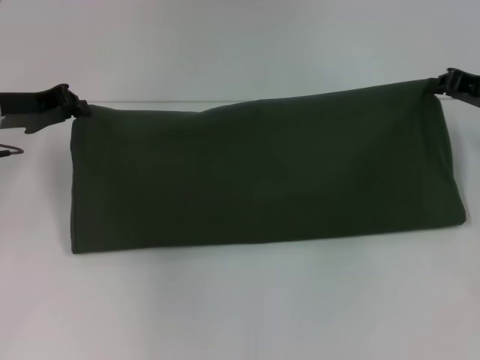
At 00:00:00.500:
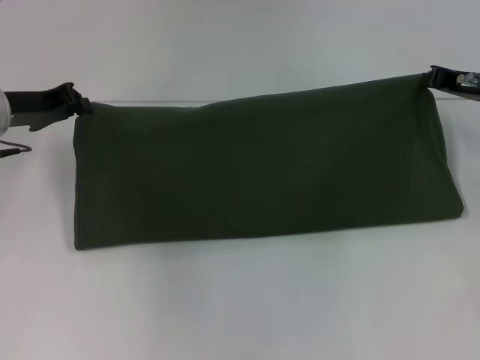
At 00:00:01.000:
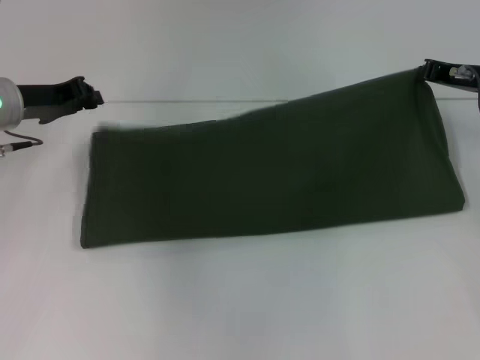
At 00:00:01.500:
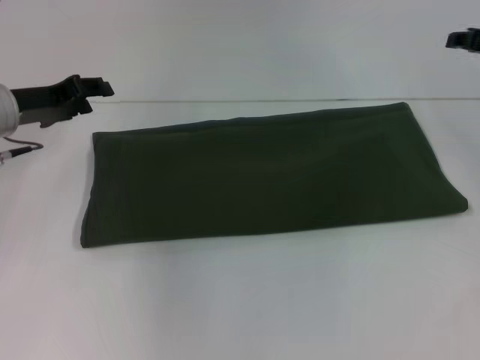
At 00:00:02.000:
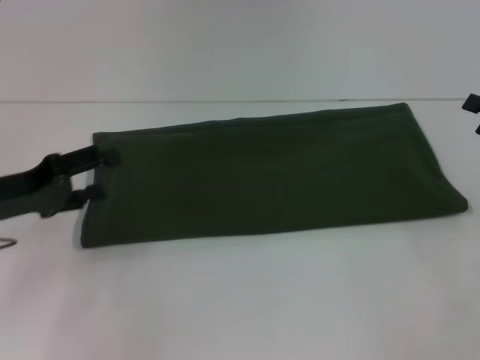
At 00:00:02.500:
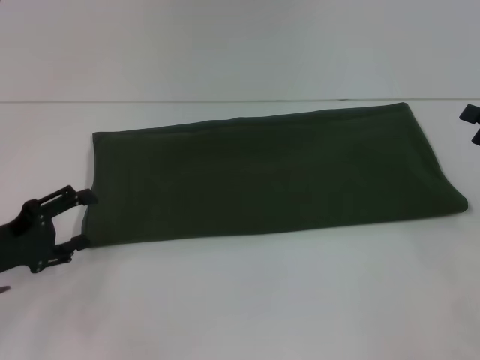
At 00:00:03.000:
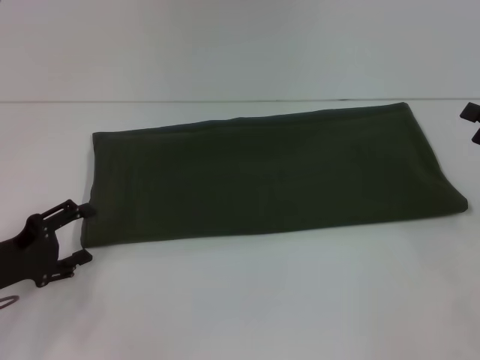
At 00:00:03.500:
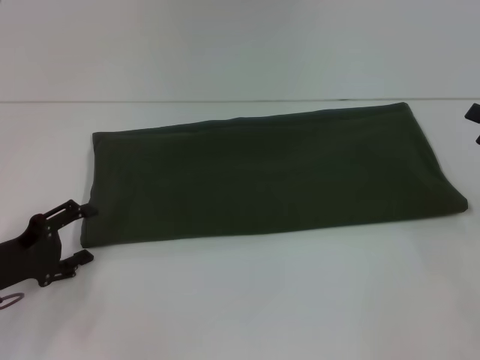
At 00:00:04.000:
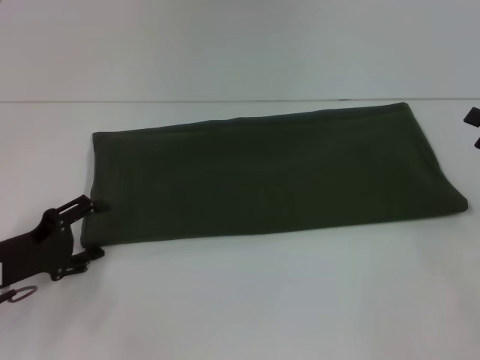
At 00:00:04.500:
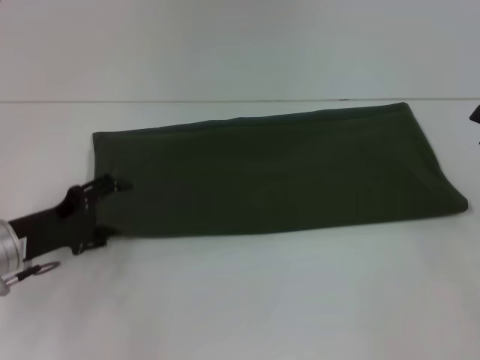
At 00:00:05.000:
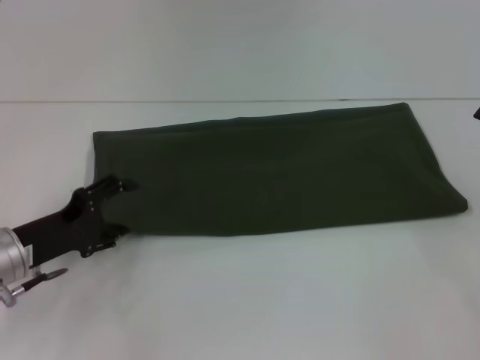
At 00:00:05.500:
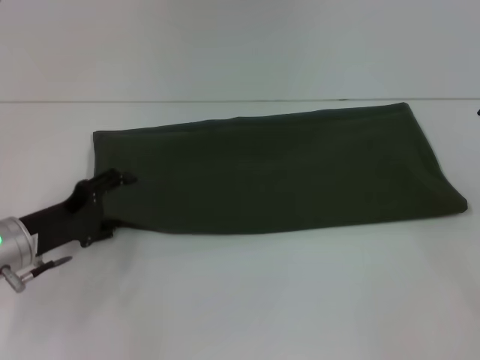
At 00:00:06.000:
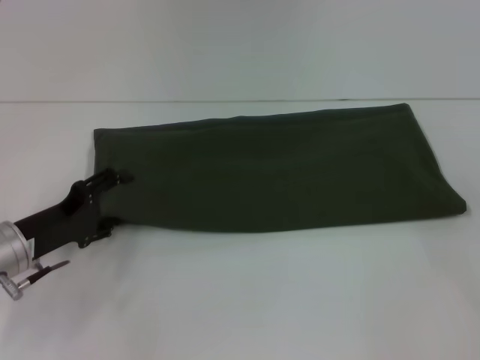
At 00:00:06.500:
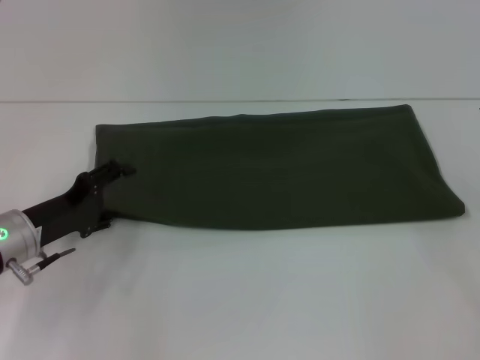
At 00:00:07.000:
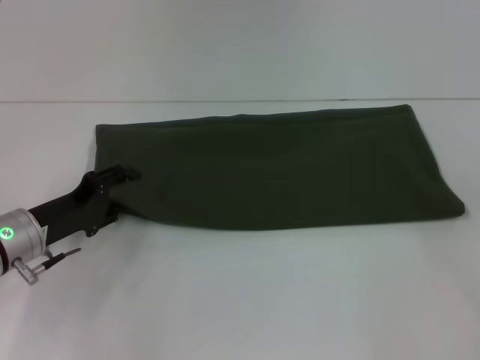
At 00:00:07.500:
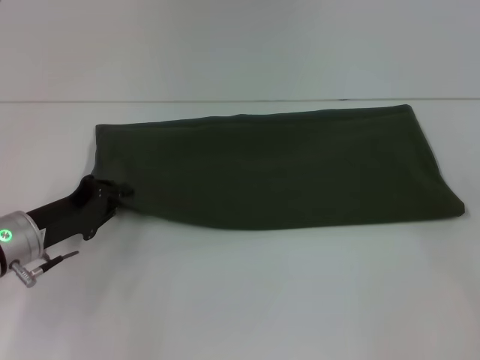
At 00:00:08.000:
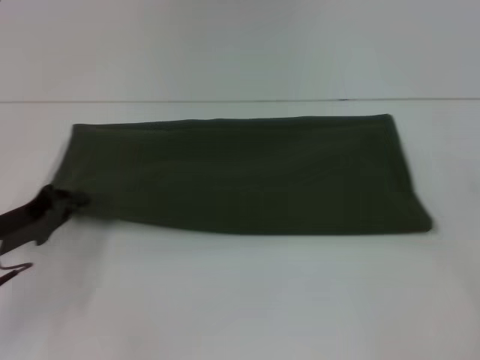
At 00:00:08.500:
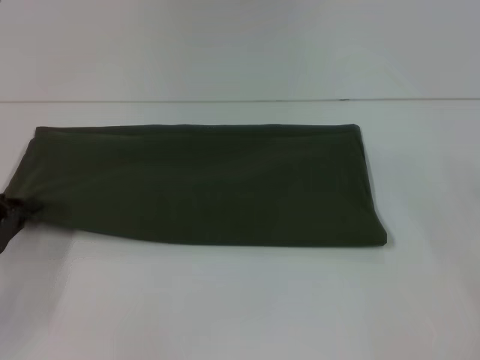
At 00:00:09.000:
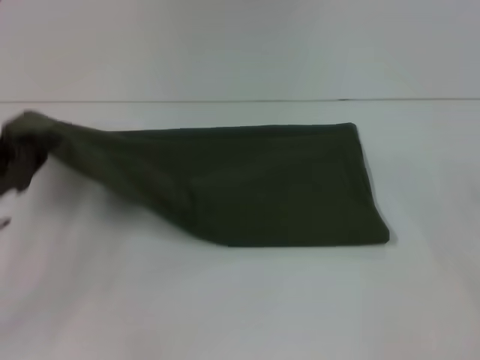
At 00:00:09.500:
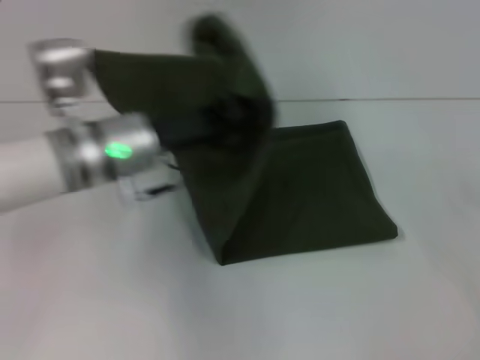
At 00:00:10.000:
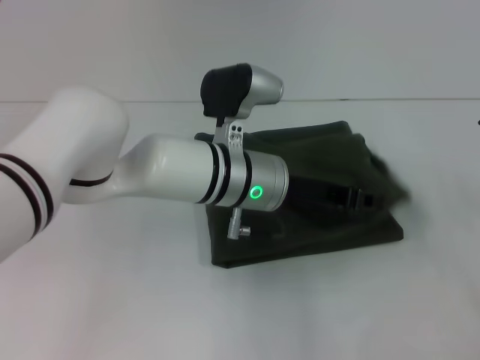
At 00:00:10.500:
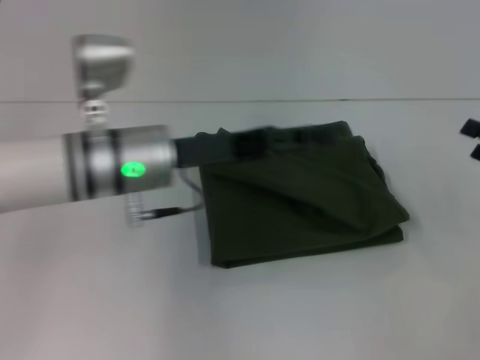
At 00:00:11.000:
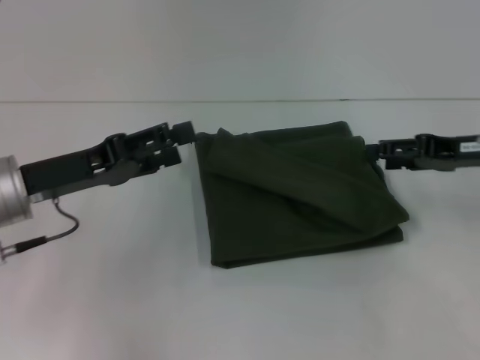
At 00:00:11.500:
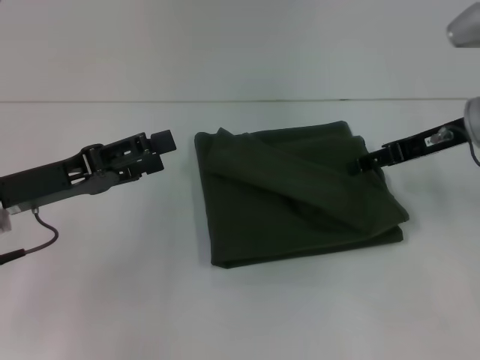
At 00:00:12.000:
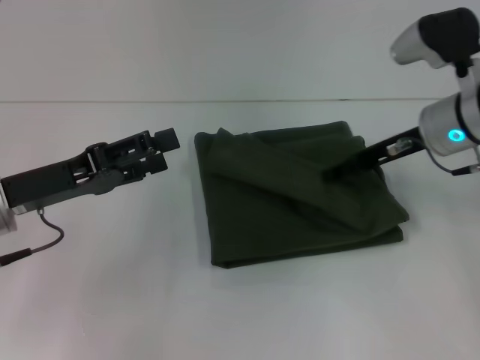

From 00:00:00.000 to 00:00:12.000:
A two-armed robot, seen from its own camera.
Step, from 00:00:00.000 to 00:00:10.000: Fold the clothes with your left hand.
From 00:00:00.000 to 00:00:02.000: The right gripper moves backward and to the right, some 10 cm, and opens its fingers; the left gripper goes some 10 cm backward, and opens its fingers.
From 00:00:02.000 to 00:00:04.000: The left gripper is displaced downward by approximately 5 cm.
From 00:00:04.000 to 00:00:06.000: There are only small adjustments of the grippers.
From 00:00:06.000 to 00:00:08.000: The left gripper closes its fingers.
From 00:00:08.000 to 00:00:10.000: The left gripper moves to the right, about 30 cm.
From 00:00:10.000 to 00:00:12.000: The right gripper goes roughly 20 cm to the left and forward. The left gripper travels to the left by about 25 cm, and opens.

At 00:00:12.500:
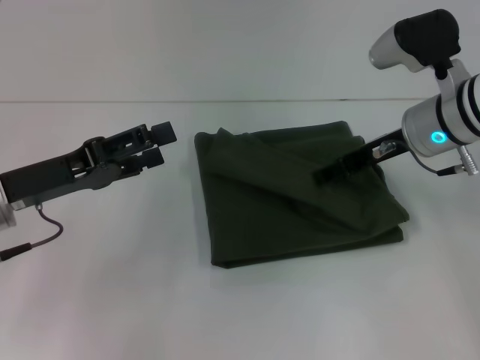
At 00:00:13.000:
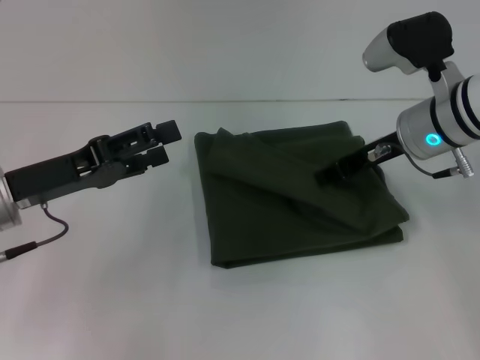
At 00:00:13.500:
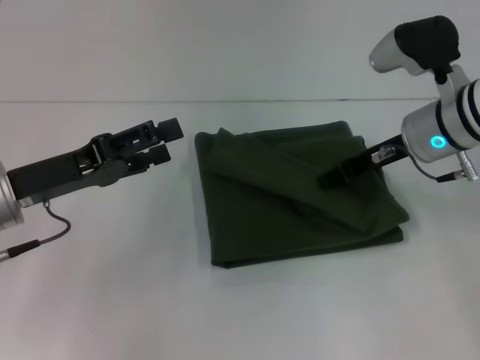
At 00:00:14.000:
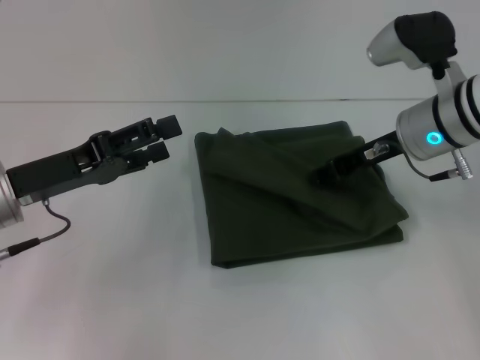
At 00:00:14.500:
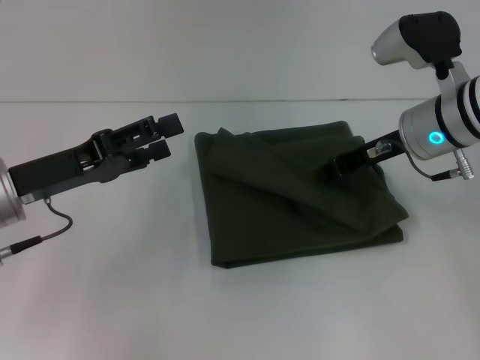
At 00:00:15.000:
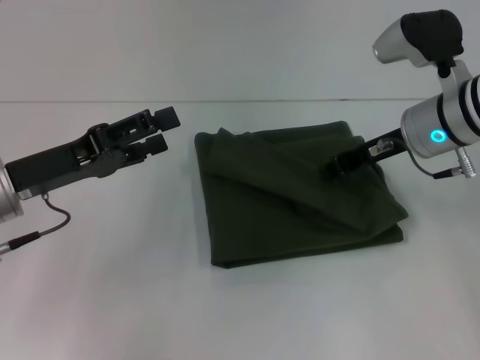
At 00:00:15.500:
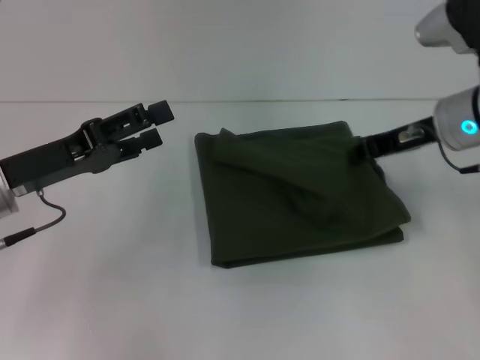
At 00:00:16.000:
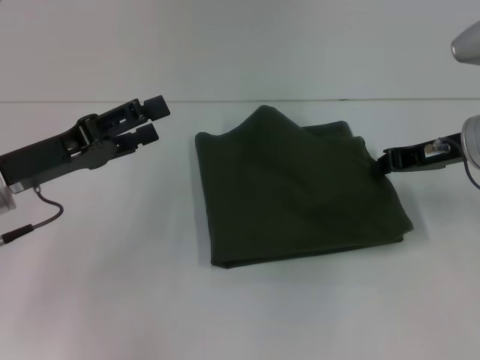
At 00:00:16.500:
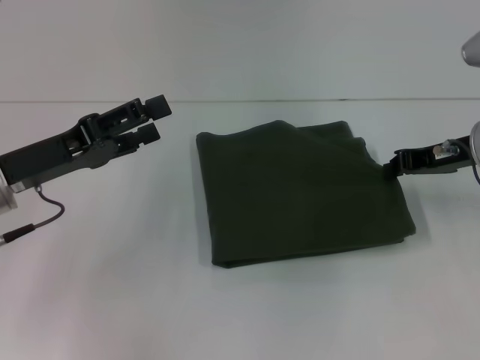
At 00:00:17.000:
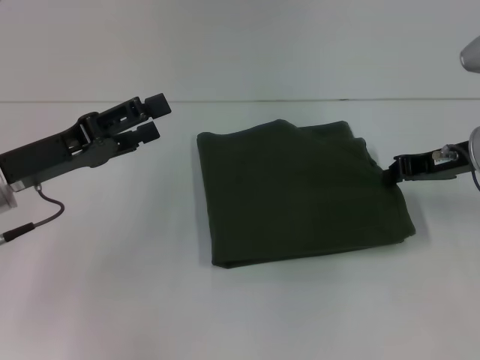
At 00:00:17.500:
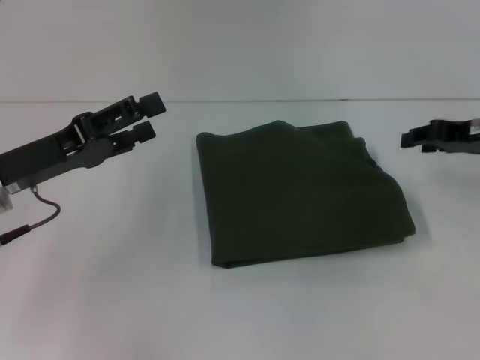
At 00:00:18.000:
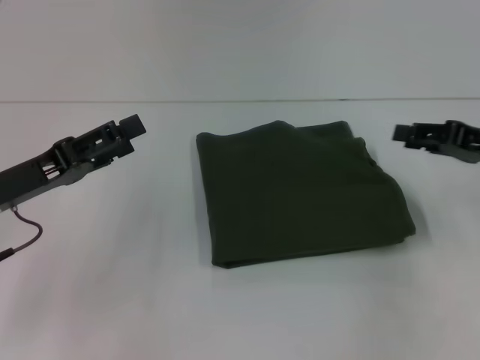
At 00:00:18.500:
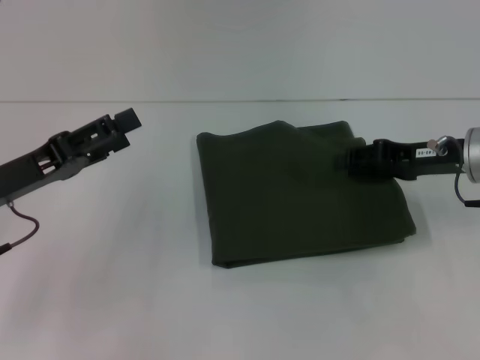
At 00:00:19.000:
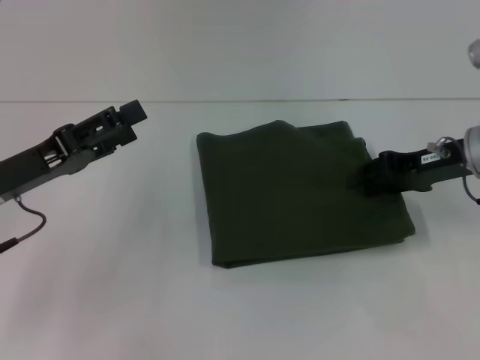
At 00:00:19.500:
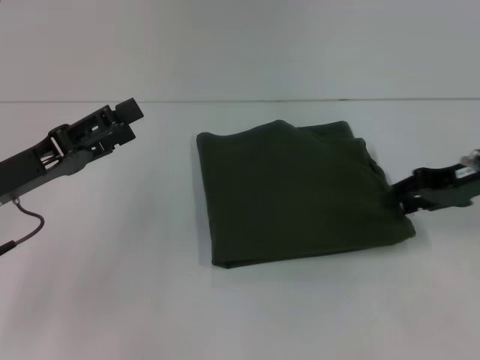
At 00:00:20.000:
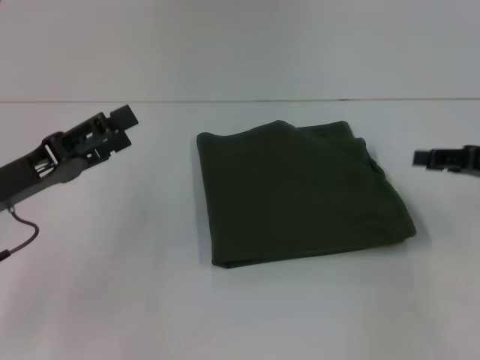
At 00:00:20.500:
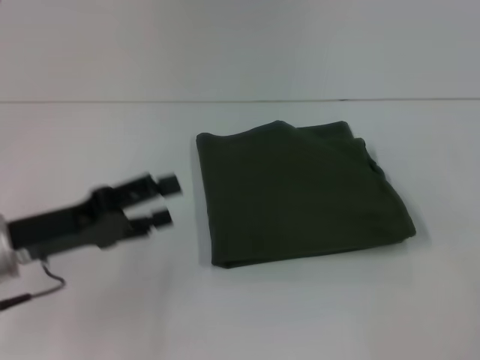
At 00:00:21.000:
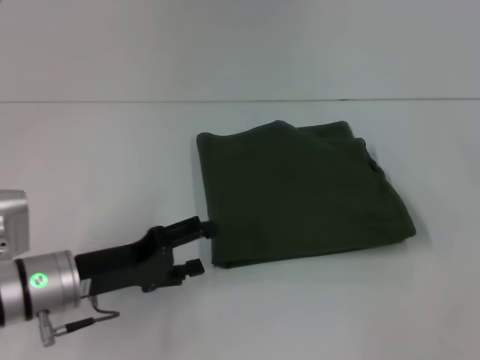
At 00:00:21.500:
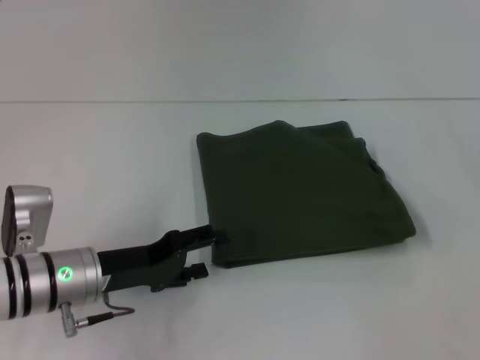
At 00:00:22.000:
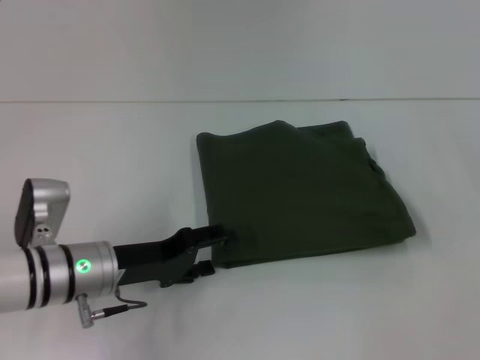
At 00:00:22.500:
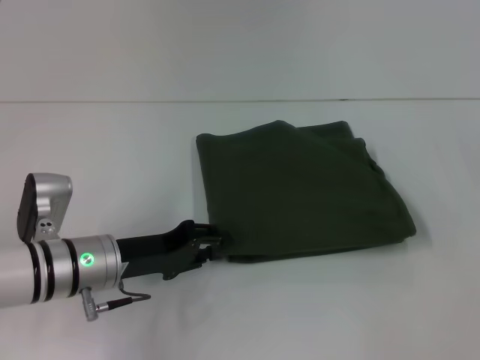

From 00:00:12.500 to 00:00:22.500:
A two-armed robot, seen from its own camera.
From 00:00:12.500 to 00:00:14.500: The right gripper closes up.
From 00:00:14.500 to 00:00:16.500: The right gripper is displaced to the right by about 5 cm.
From 00:00:16.500 to 00:00:18.500: The right gripper opens.
From 00:00:18.500 to 00:00:20.500: The right gripper travels to the right and backward by roughly 15 cm.
From 00:00:20.500 to 00:00:22.500: The left gripper moves to the right and downward, about 10 cm.

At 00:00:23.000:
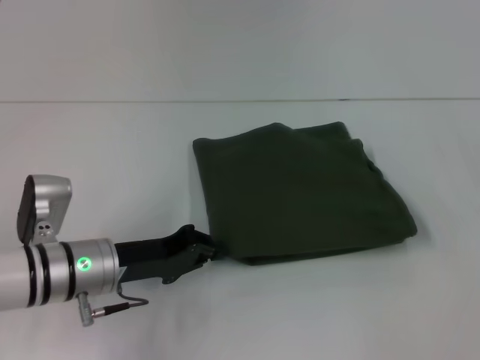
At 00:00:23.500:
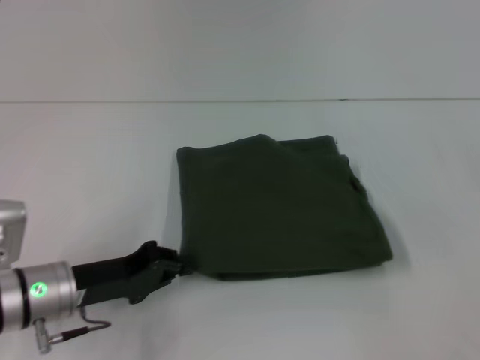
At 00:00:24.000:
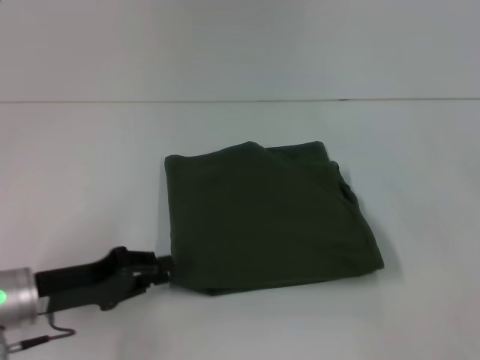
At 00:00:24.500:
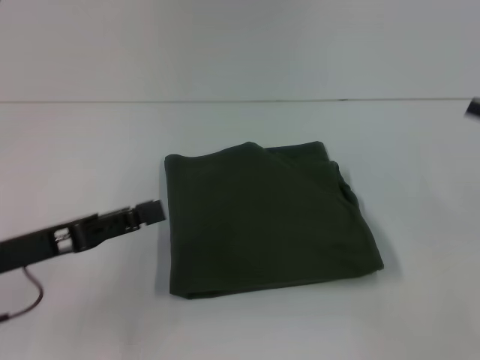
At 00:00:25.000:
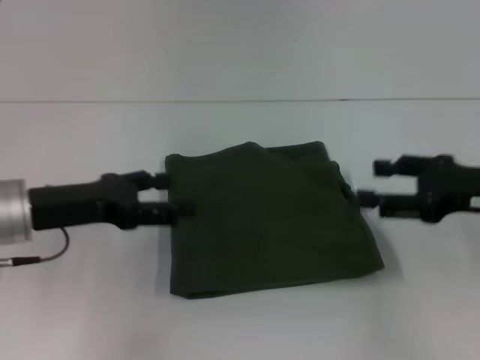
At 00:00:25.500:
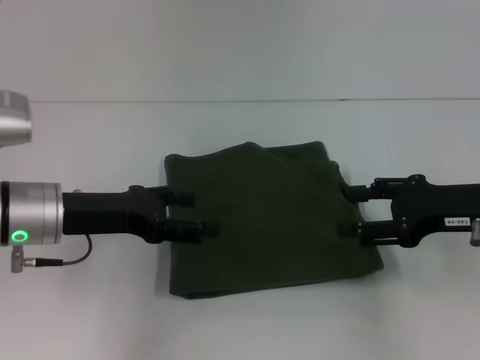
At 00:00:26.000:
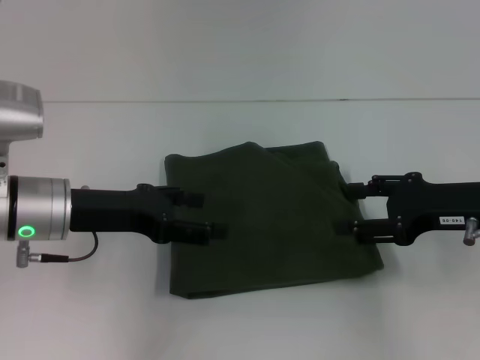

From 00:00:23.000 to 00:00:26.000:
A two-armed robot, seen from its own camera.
From 00:00:23.000 to 00:00:24.500: The left gripper goes approximately 10 cm to the left and upward, and opens.
From 00:00:24.500 to 00:00:26.000: The left gripper is displaced forward and to the right by about 10 cm, and opens its fingers; the right gripper moves to the left, about 10 cm.
